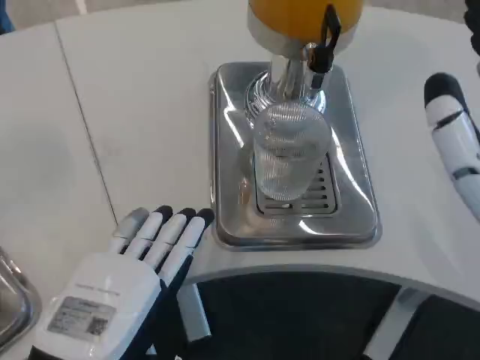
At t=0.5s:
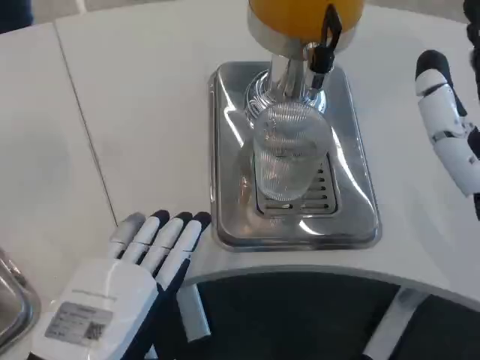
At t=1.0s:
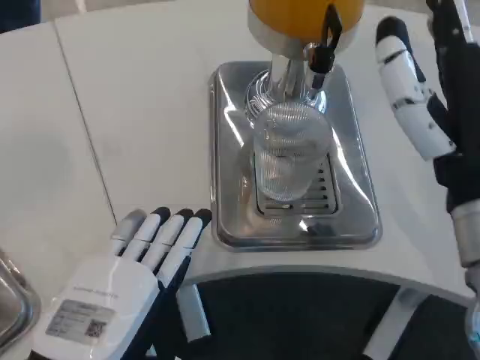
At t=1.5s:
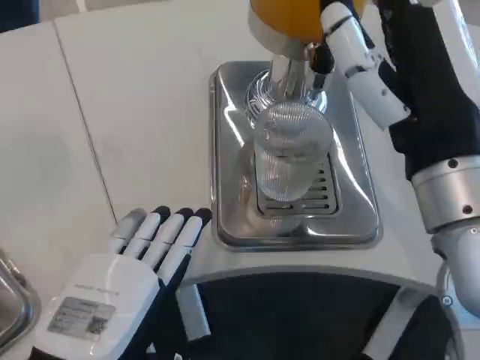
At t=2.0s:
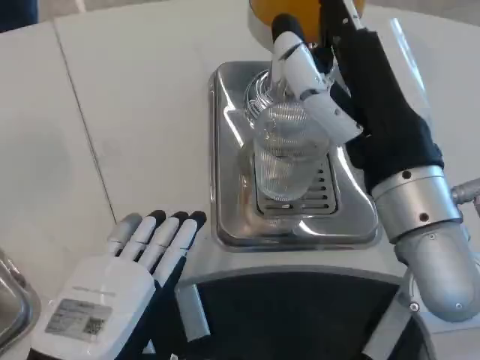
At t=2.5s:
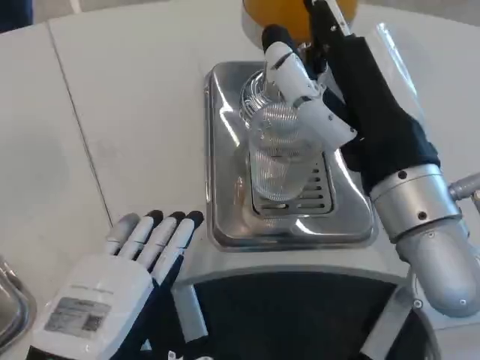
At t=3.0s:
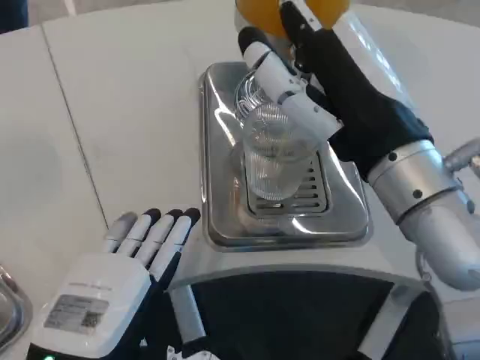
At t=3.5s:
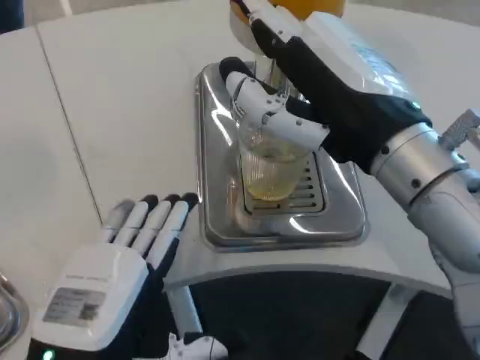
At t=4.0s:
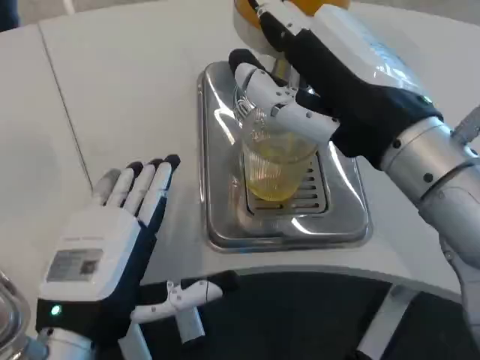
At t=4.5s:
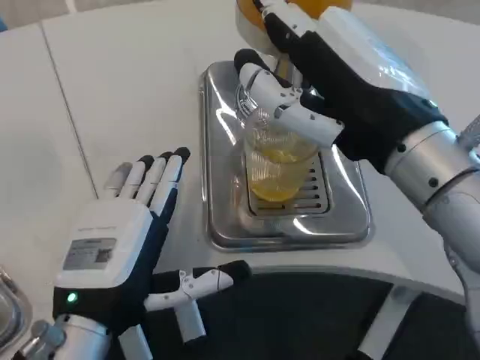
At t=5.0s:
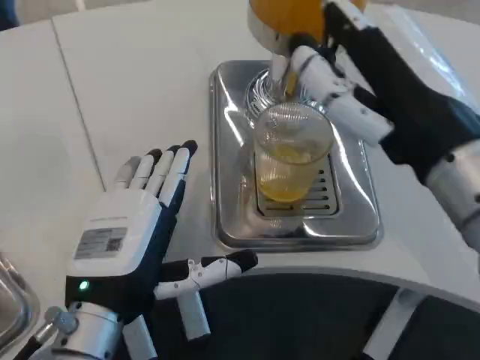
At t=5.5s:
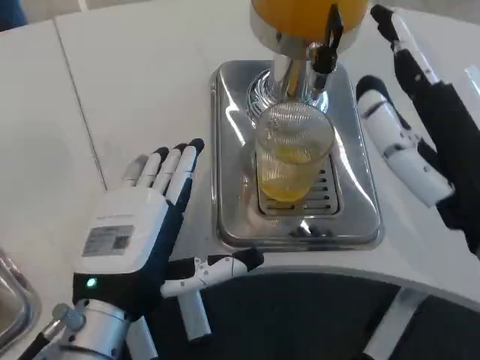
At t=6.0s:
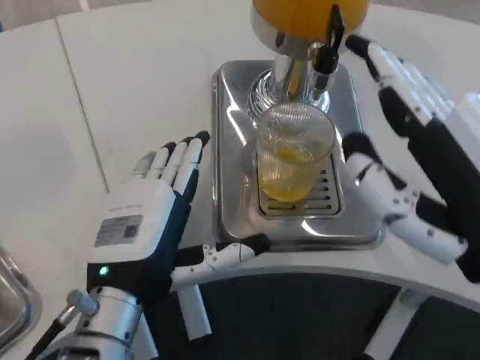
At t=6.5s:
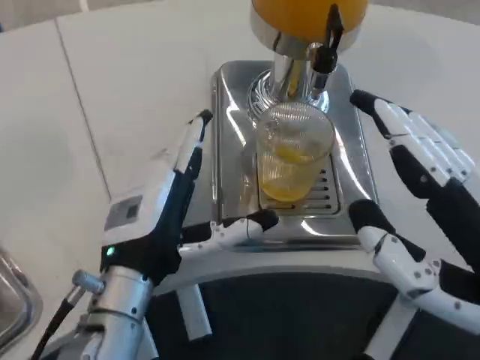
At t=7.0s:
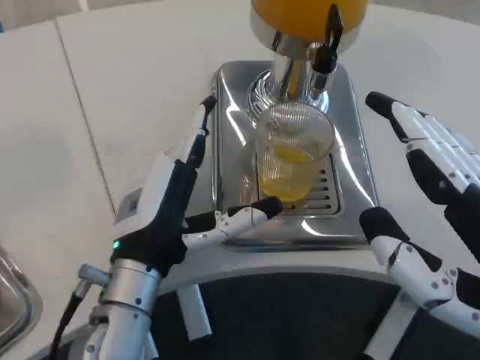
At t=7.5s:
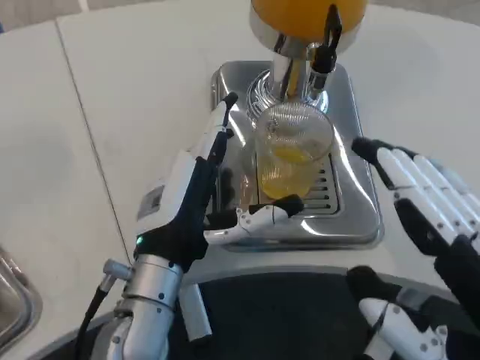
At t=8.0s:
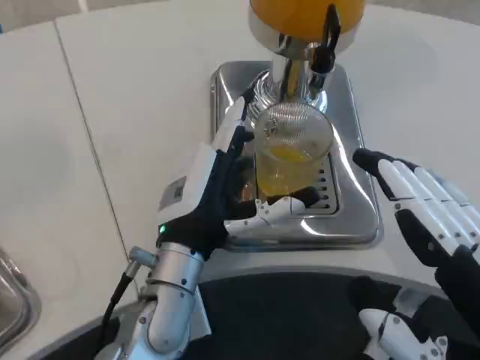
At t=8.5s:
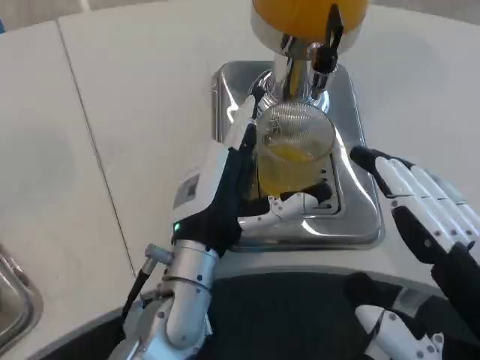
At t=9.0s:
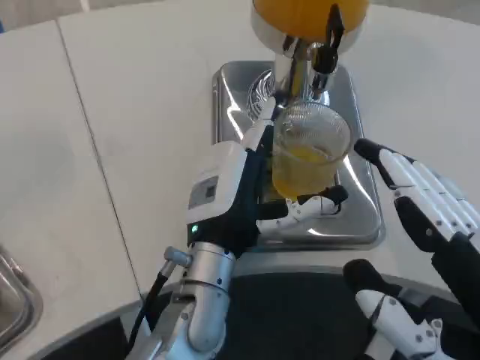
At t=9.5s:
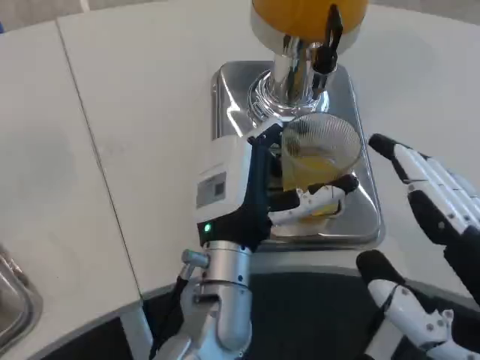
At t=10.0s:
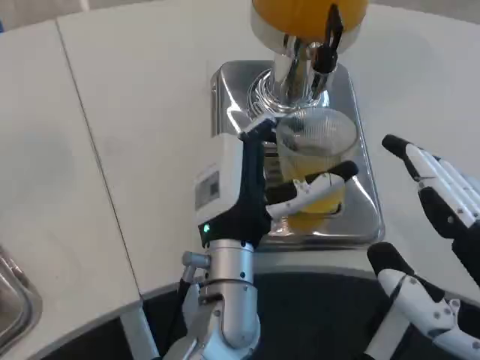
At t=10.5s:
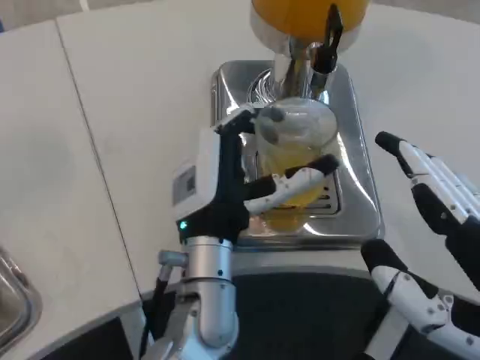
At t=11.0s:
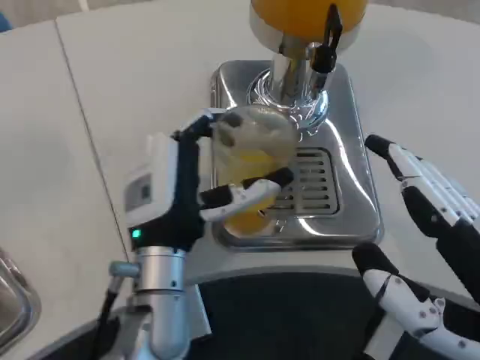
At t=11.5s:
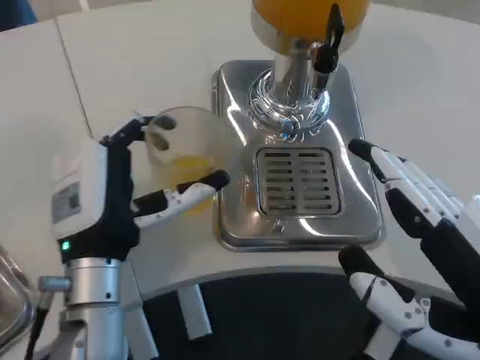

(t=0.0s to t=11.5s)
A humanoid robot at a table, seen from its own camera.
Task of the whole recording: Grasp the cup under the faucet to collect the drink, then remove the cup.
t=0.0s - t=2.0s: The right hand heads forward and to the left, covering some 10 cm.
t=2.0s - t=4.0s: The left hand is displaced forward by roughly 5 cm.
t=4.0s - t=6.0s: The right hand shifts approximately 10 cm backward and to the right. Meanwhile the left hand moves about 5 cm.
t=6.0s - t=7.5s: The left hand shifts by approximately 5 cm, while the right hand goes approximately 5 cm backward.
t=7.5s - t=9.5s: The left hand moves to the right, about 10 cm.
t=9.5s - t=11.5s: The left hand shifts approximately 10 cm to the left.

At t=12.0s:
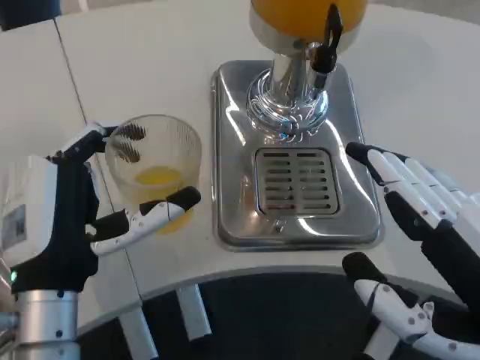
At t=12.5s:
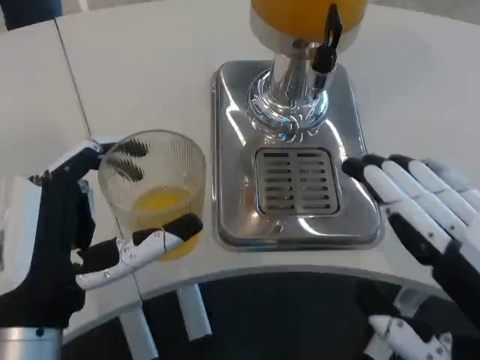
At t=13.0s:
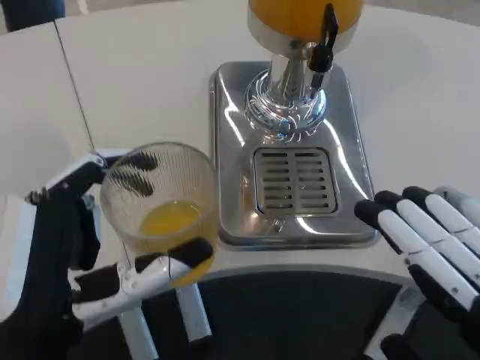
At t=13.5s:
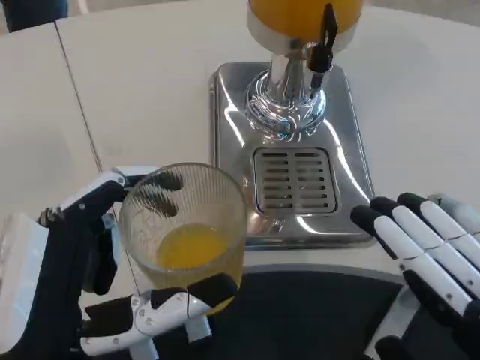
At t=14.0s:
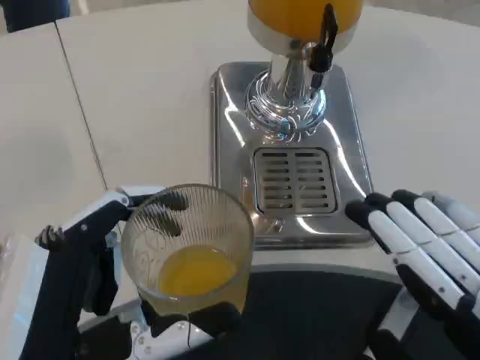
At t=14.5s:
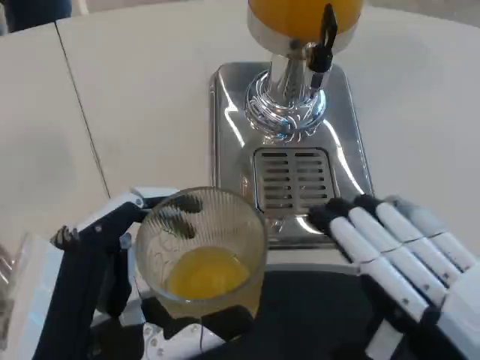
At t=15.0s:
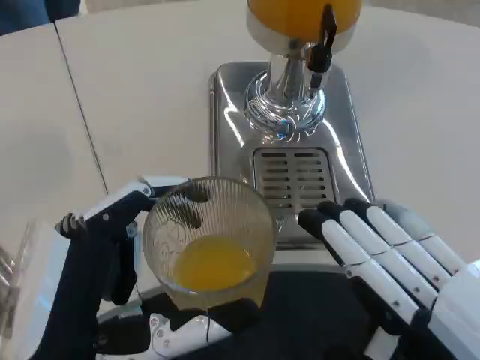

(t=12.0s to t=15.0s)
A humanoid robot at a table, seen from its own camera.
Task of the whole recording: Grasp the cup under the faucet to collect the drink, then remove the cup.
t=12.0s - t=13.5s: The left hand shifts approximately 10 cm backward.

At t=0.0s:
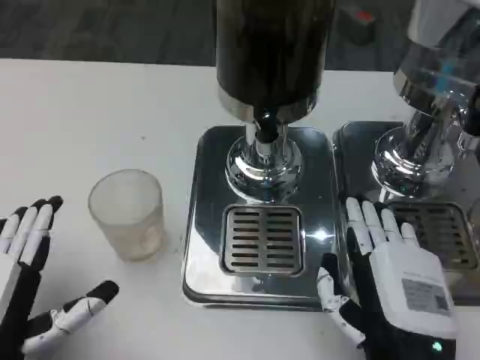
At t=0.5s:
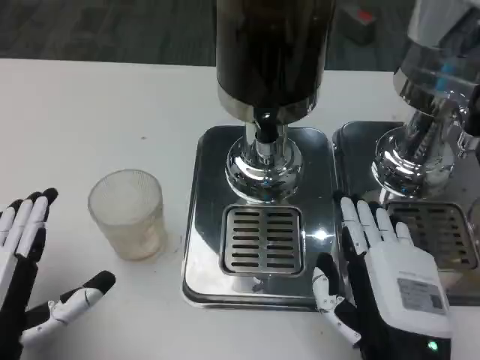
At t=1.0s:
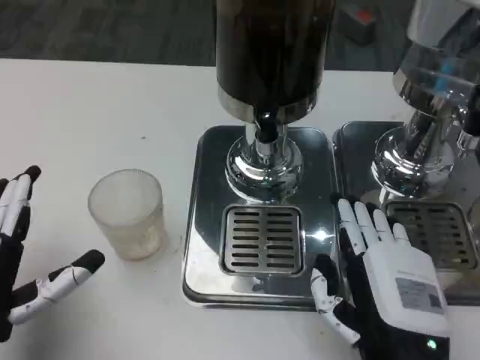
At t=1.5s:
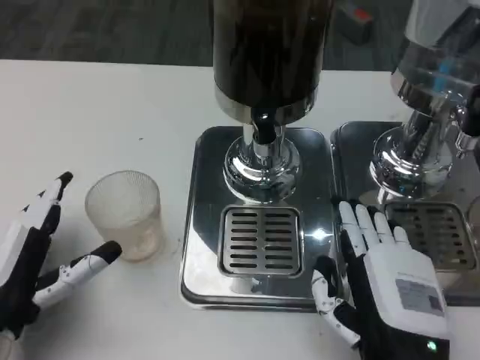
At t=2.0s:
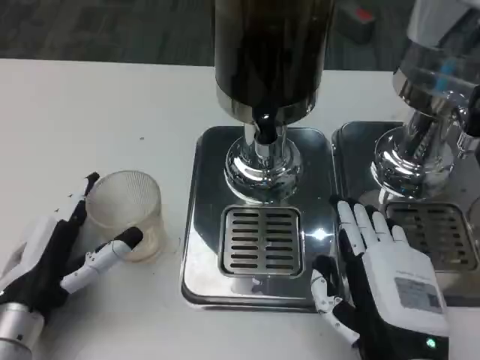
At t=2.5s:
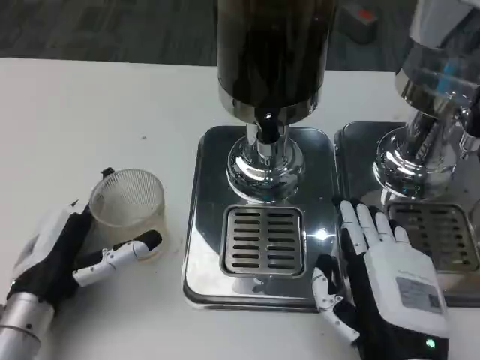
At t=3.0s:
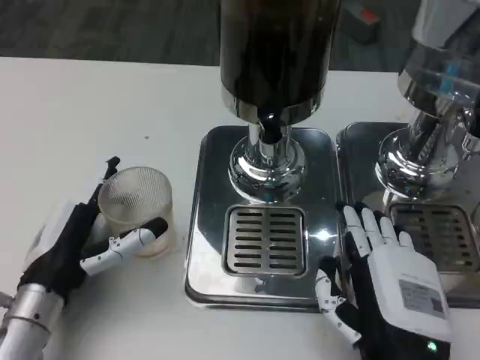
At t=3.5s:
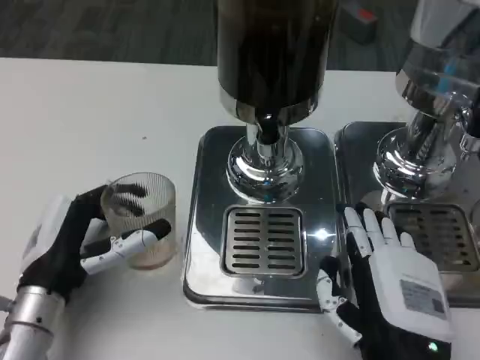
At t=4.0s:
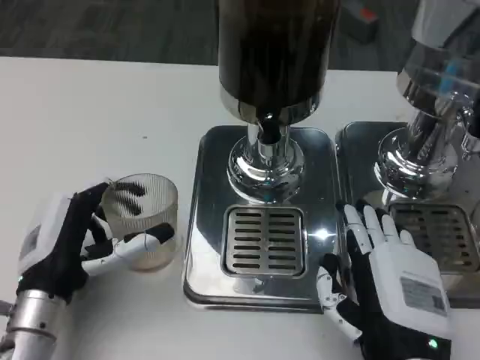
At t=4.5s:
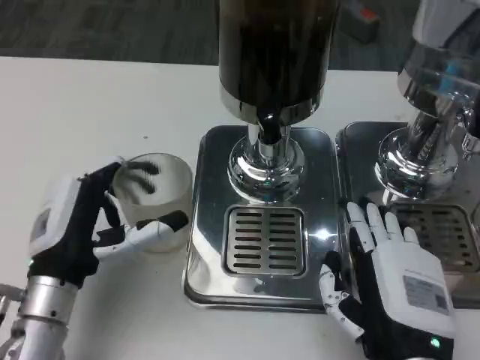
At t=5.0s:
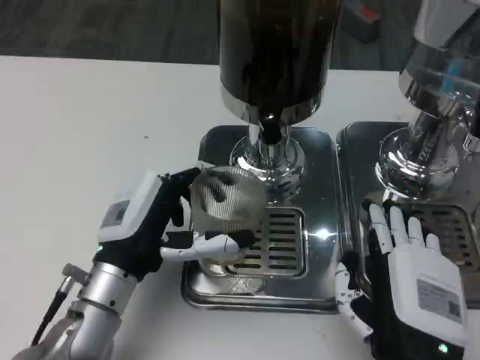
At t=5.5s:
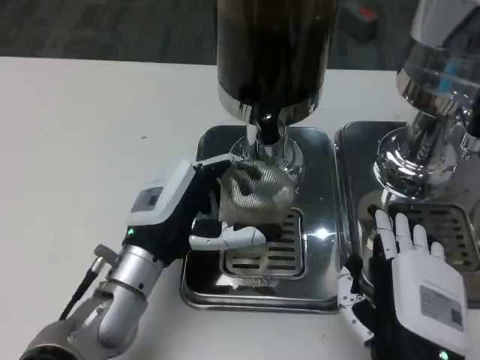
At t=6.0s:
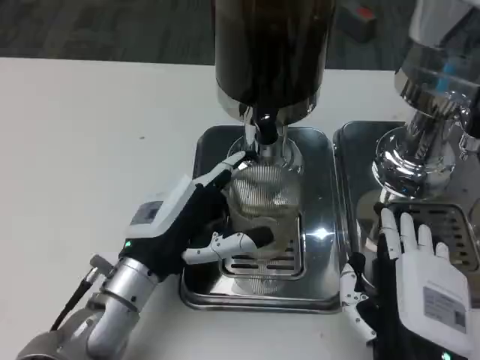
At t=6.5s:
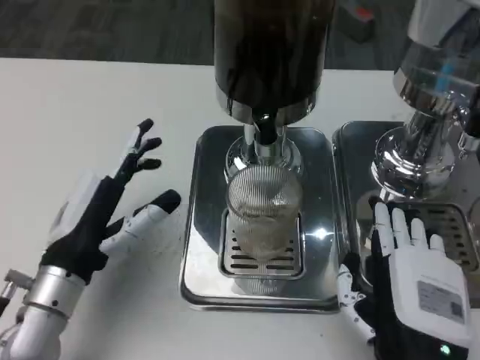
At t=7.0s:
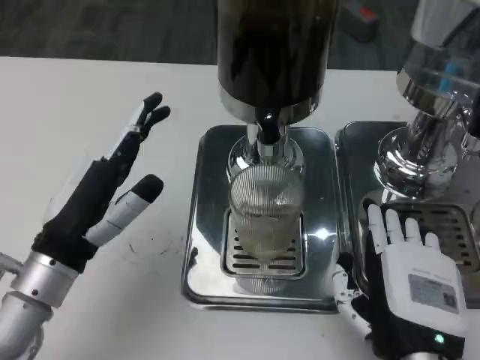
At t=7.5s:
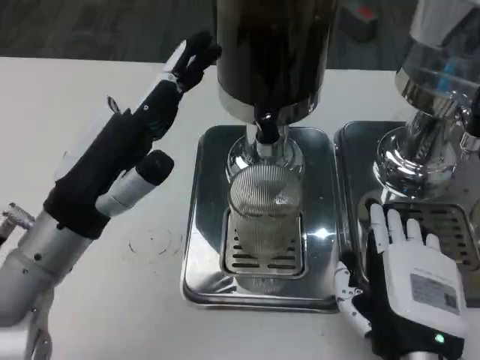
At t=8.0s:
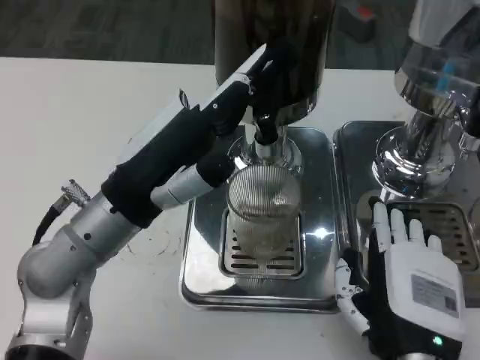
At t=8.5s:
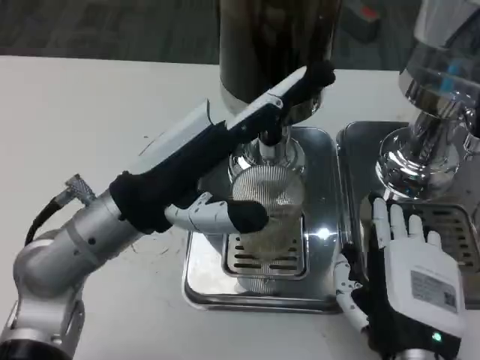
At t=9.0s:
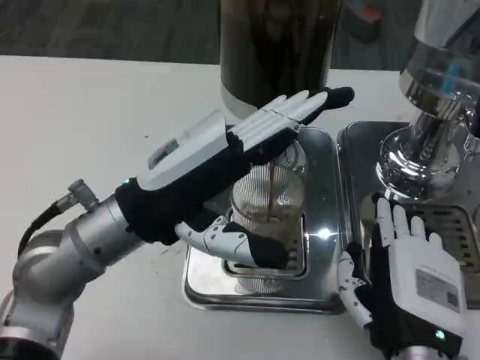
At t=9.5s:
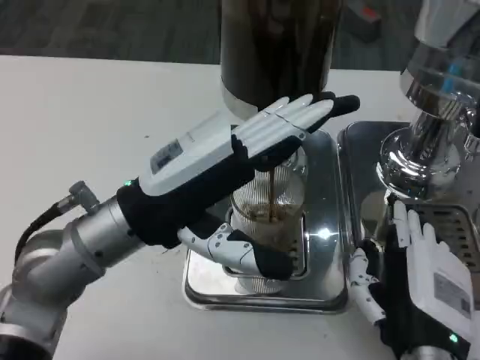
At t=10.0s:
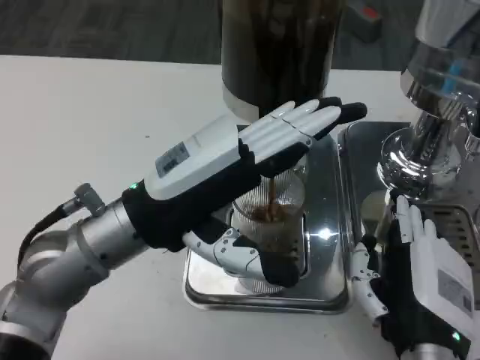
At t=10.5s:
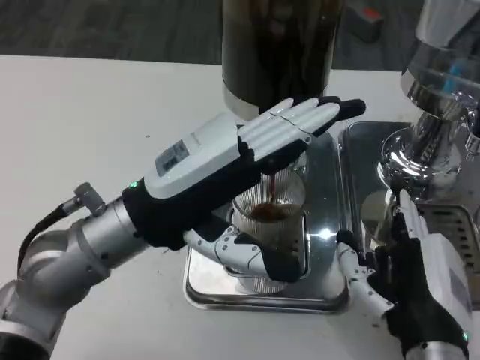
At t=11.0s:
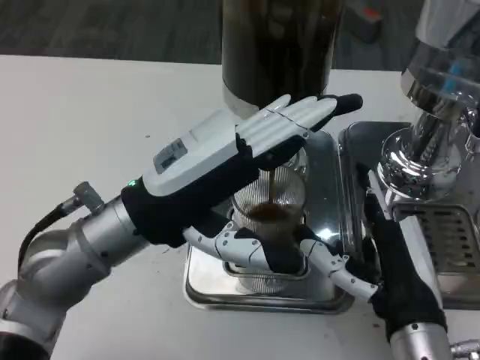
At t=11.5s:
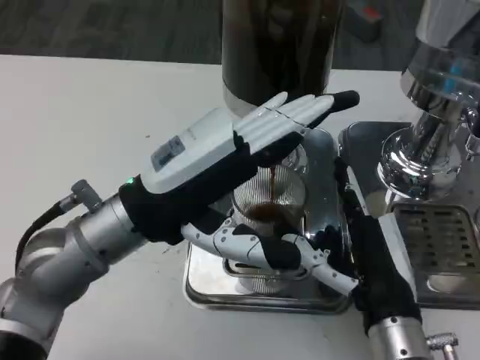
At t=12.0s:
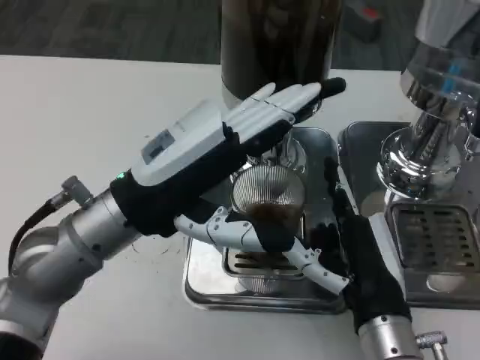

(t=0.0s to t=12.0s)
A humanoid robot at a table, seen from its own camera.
Task of the whole recording: Grasp the cup under the faucet to collect the drink, then remove the cup.
t=0.0s - t=2.0s: The left hand travels forward by about 10 cm.
t=4.0s - t=6.0s: The left hand moves to the right, some 5 cm.
t=6.0s - t=8.0s: The left hand goes some 10 cm upward.
